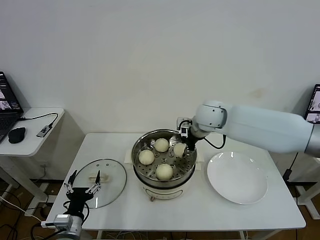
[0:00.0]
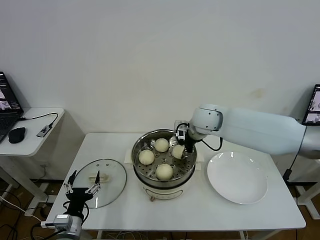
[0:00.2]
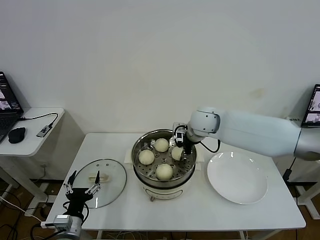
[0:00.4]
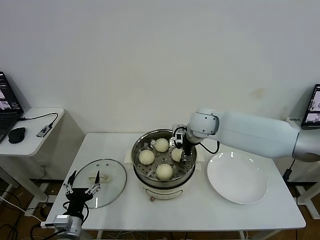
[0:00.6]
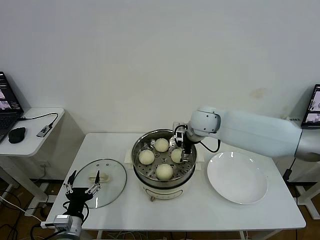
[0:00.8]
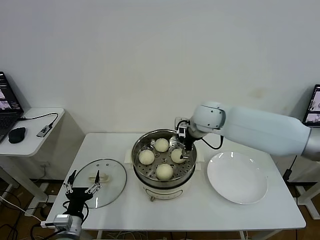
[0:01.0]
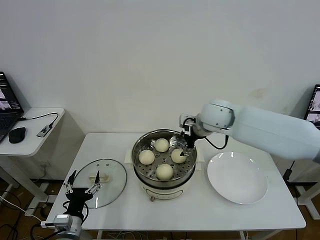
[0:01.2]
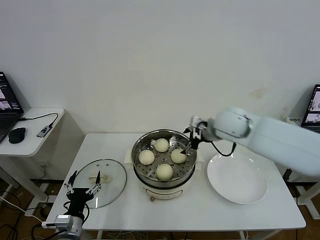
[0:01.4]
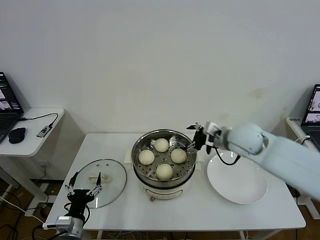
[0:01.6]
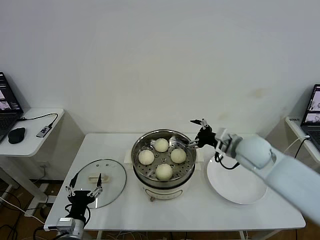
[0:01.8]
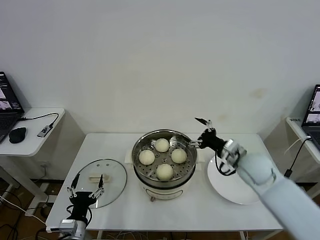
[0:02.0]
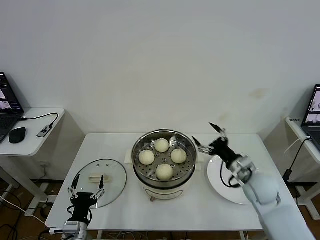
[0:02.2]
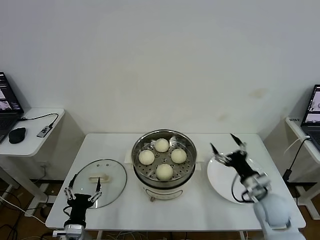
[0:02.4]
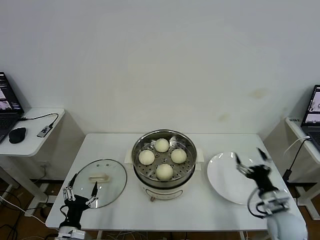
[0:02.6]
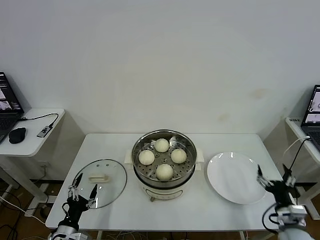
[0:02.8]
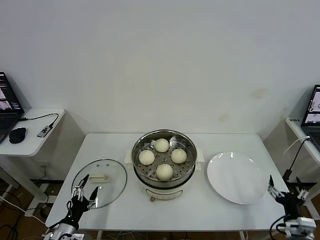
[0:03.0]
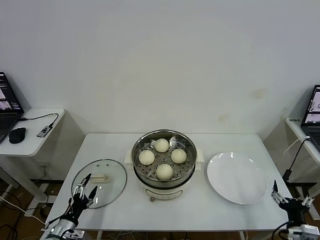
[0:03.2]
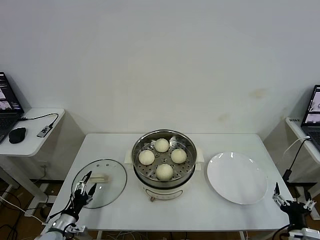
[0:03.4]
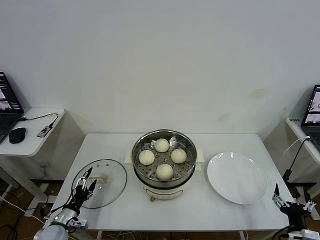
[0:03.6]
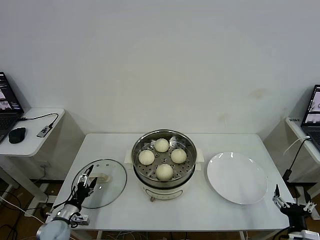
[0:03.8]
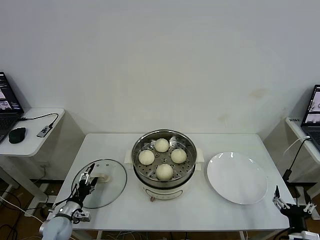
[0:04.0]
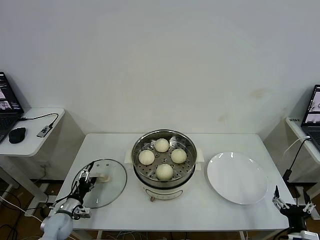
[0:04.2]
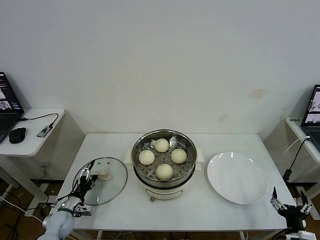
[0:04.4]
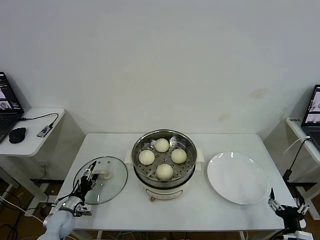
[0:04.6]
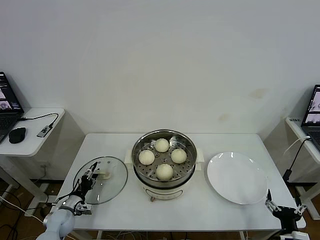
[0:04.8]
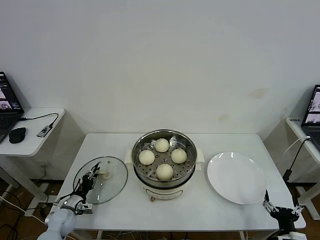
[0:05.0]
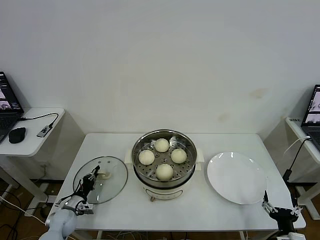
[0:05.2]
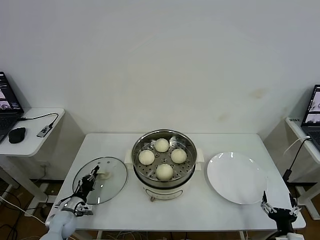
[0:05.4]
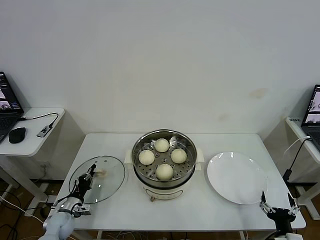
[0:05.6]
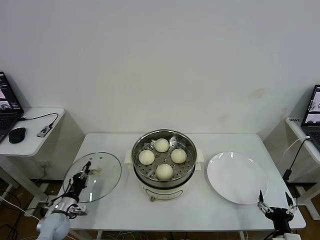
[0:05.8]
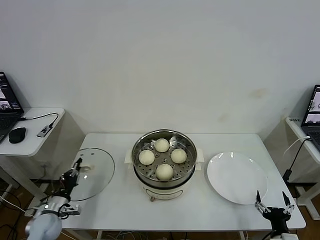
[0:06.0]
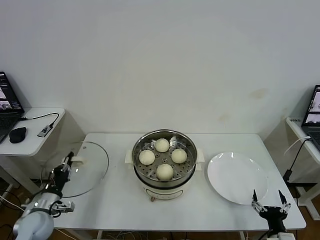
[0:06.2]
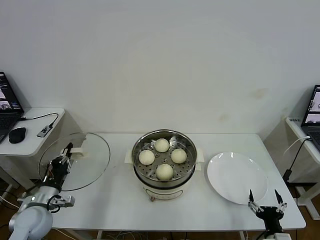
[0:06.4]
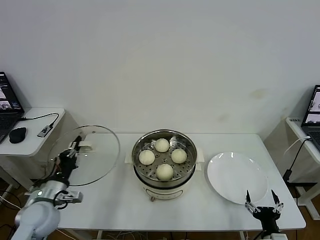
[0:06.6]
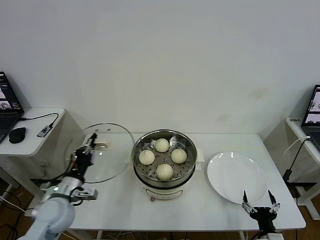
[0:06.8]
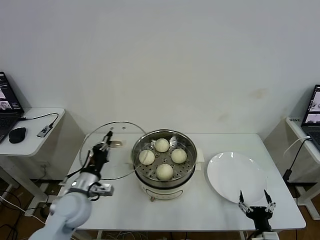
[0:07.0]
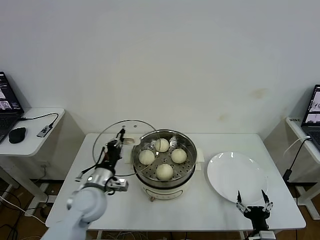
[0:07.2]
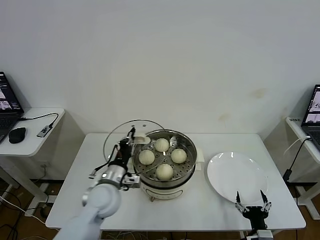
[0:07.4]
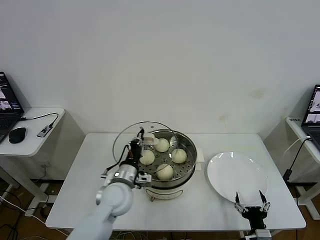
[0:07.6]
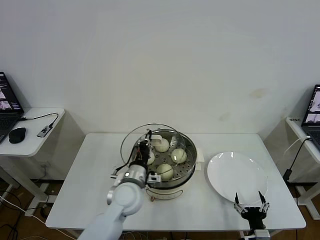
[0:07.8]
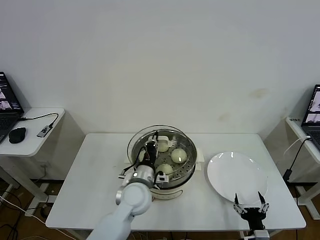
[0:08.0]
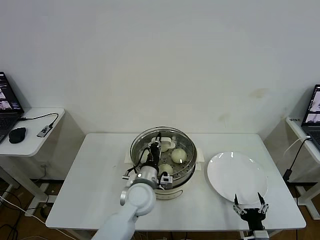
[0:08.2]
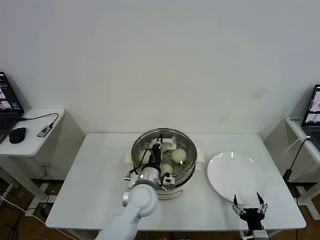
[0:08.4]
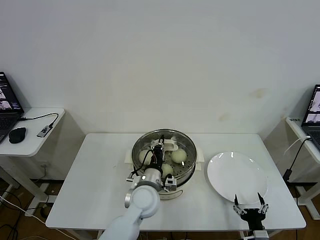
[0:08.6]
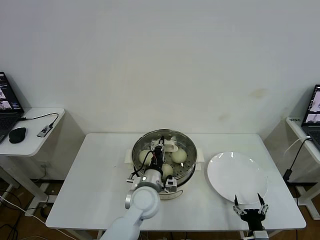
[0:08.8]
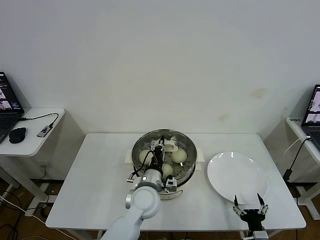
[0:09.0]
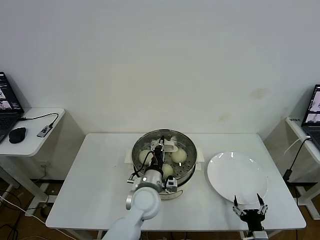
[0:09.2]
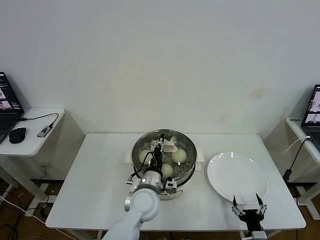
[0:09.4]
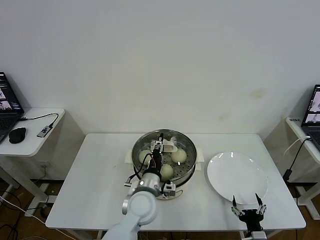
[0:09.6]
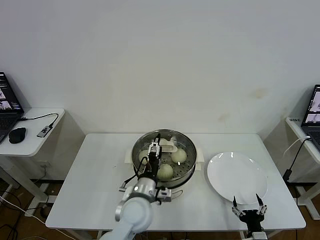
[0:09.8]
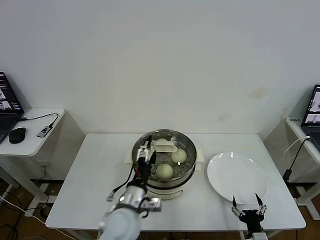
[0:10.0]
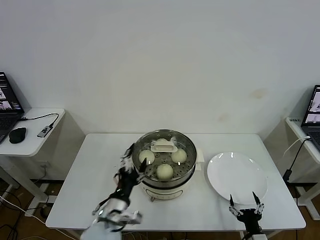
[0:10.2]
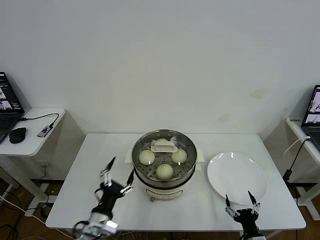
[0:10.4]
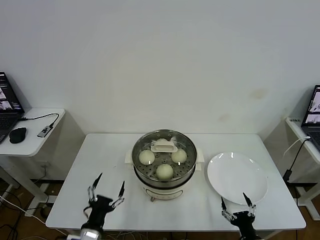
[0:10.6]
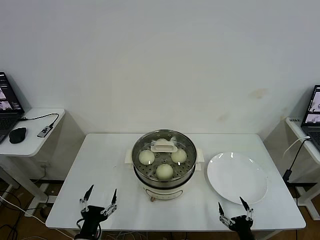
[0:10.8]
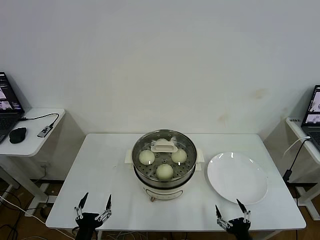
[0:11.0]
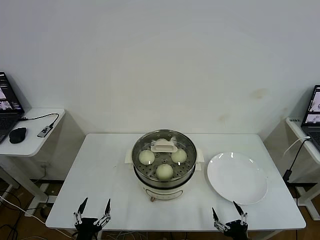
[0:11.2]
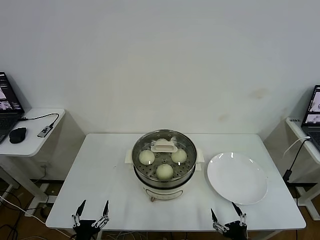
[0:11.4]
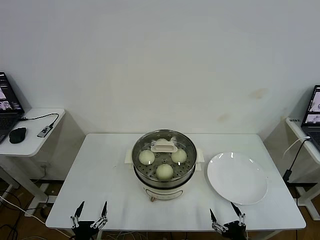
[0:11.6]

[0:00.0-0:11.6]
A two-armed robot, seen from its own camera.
Task of the whole recording: take steamed baozi put them in steamer then cover it.
Step, 0:01.2 to 0:05.4: Grasp the pot lid with left gripper.
Step, 0:05.6 to 0:10.0: Place the pot lid on the steamer with left gripper.
0:00.0 to 0:01.4: The right gripper shifts by roughly 5 cm, and opens its fingers.
0:01.4 to 0:02.8: The left gripper changes place by approximately 5 cm, while the right gripper shifts roughly 40 cm backward, downward and to the right.
0:02.8 to 0:04.4: The right gripper is displaced backward by approximately 5 cm. The left gripper is displaced forward, downward and to the left by roughly 15 cm.
0:04.4 to 0:05.8: The left gripper closes.
0:05.8 to 0:07.2: The left gripper heads upward and to the right, covering roughly 25 cm. Meanwhile the right gripper heads to the left, covering roughly 5 cm.
0:07.2 to 0:08.8: The left gripper moves to the right, some 15 cm.
0:08.8 to 0:10.2: The left gripper goes approximately 15 cm backward and to the left, and opens.
0:10.2 to 0:11.6: The left gripper goes approximately 20 cm to the left, backward and downward; the right gripper changes place by about 5 cm.

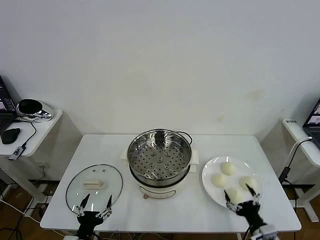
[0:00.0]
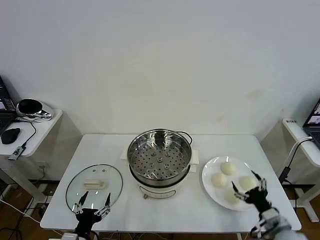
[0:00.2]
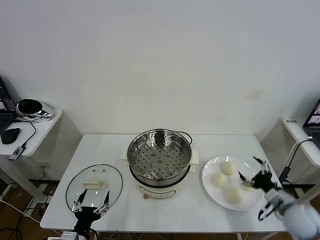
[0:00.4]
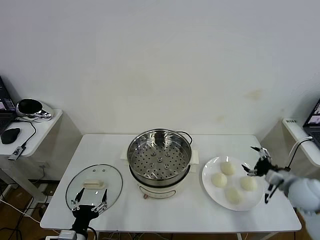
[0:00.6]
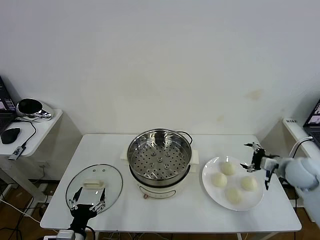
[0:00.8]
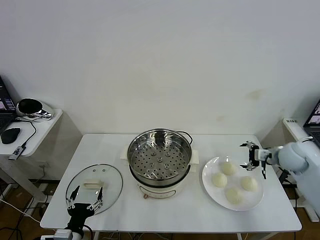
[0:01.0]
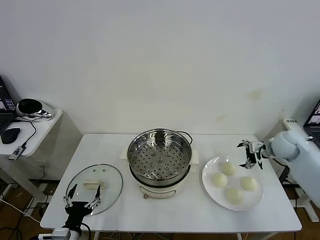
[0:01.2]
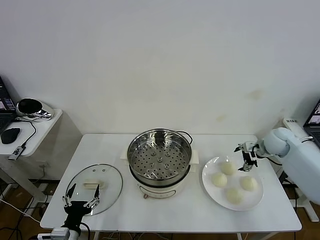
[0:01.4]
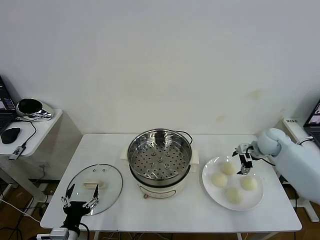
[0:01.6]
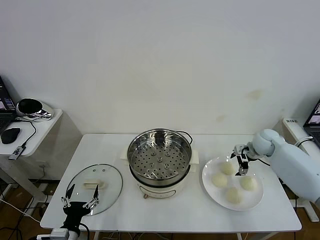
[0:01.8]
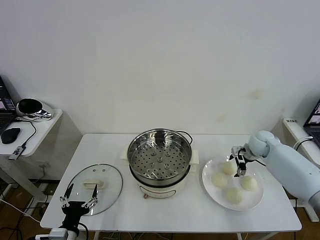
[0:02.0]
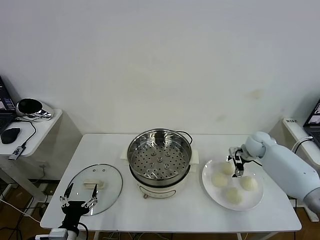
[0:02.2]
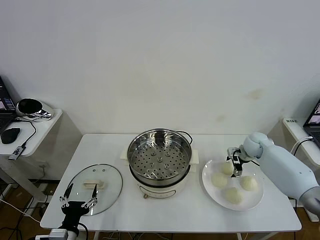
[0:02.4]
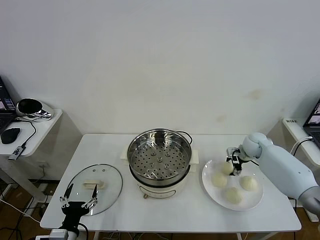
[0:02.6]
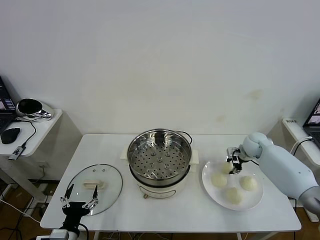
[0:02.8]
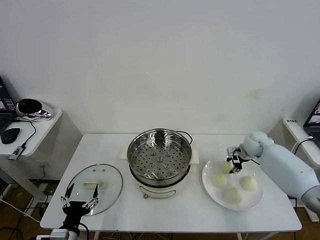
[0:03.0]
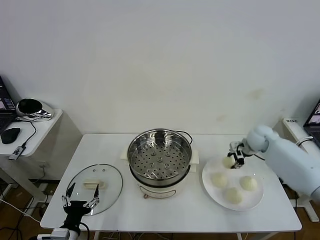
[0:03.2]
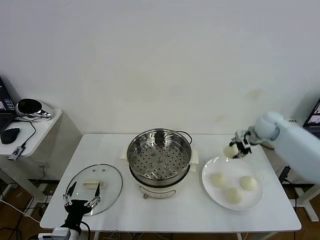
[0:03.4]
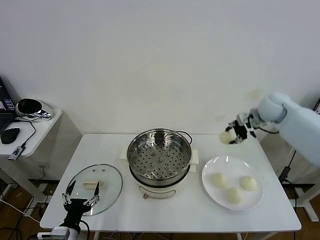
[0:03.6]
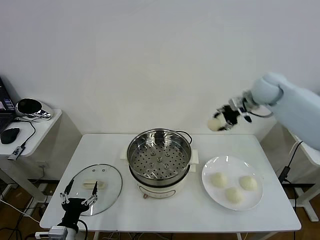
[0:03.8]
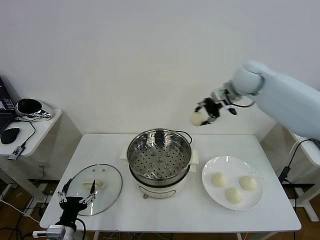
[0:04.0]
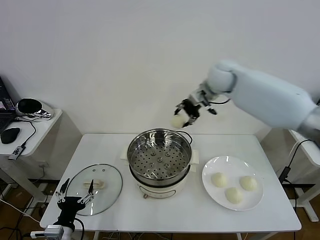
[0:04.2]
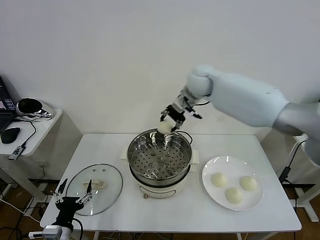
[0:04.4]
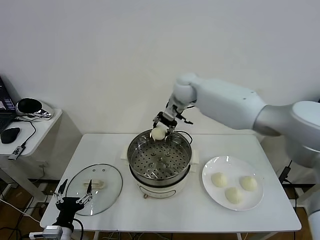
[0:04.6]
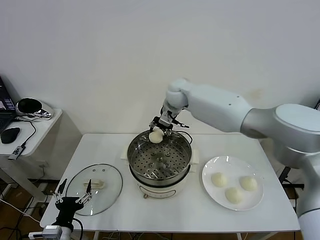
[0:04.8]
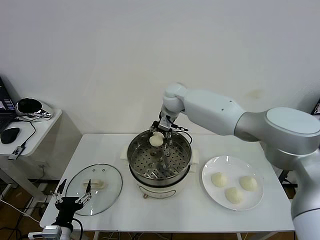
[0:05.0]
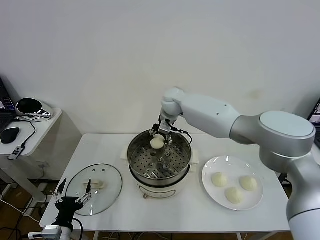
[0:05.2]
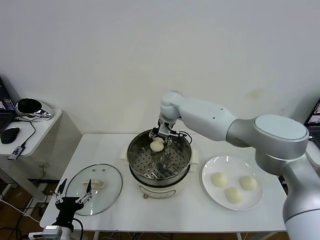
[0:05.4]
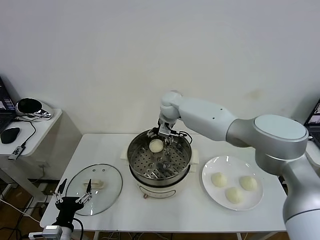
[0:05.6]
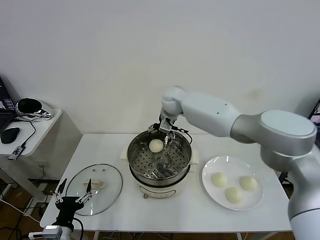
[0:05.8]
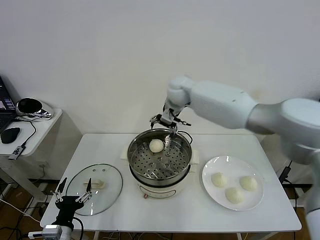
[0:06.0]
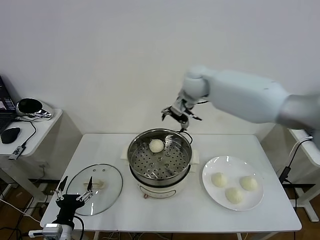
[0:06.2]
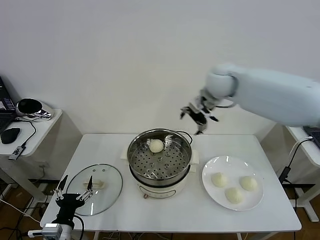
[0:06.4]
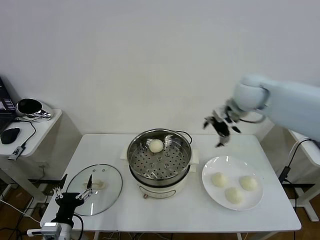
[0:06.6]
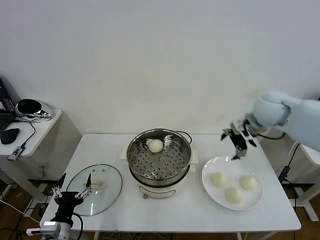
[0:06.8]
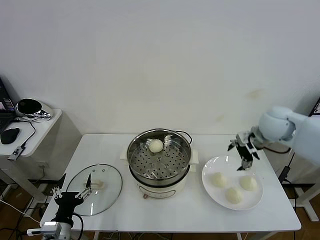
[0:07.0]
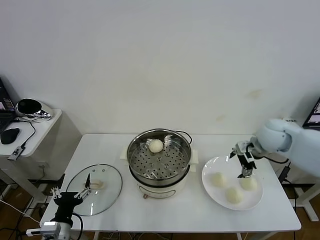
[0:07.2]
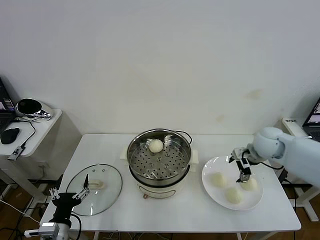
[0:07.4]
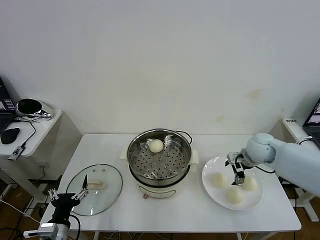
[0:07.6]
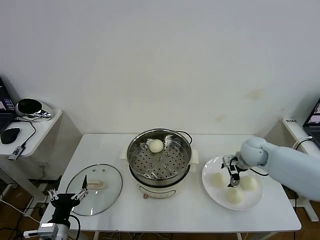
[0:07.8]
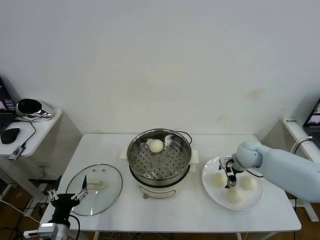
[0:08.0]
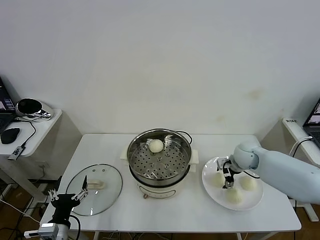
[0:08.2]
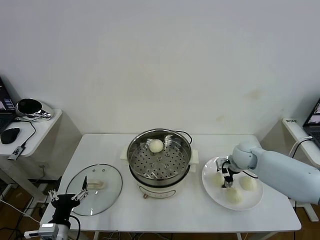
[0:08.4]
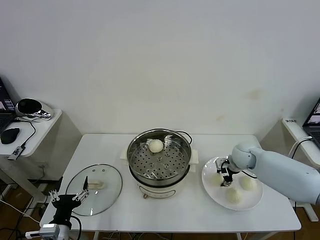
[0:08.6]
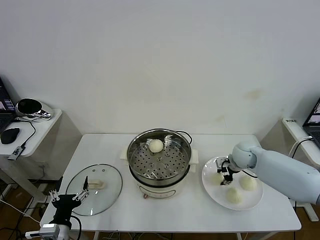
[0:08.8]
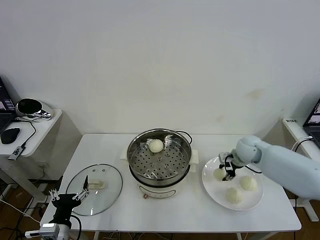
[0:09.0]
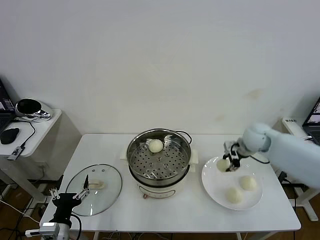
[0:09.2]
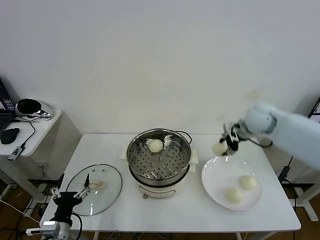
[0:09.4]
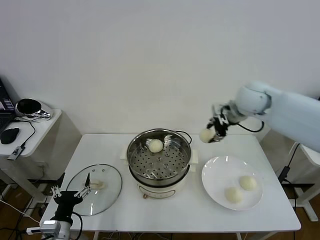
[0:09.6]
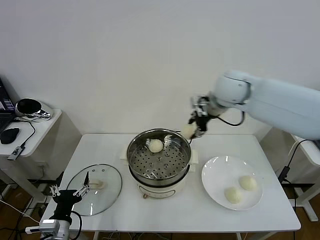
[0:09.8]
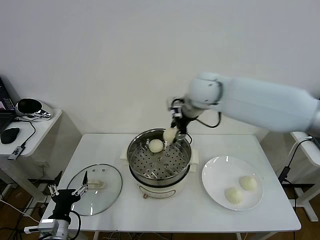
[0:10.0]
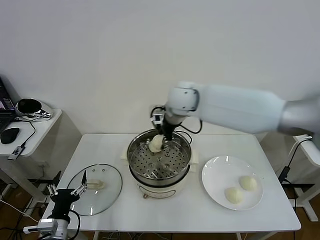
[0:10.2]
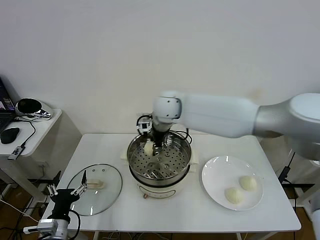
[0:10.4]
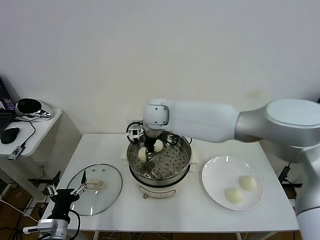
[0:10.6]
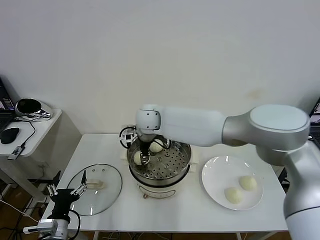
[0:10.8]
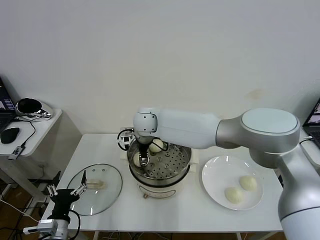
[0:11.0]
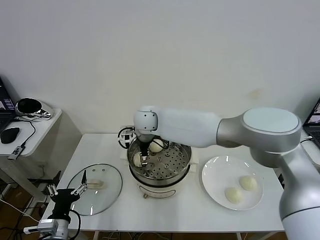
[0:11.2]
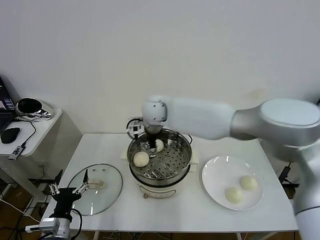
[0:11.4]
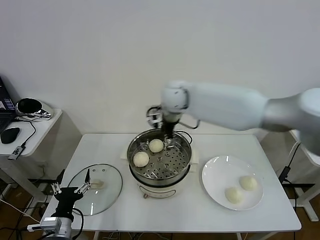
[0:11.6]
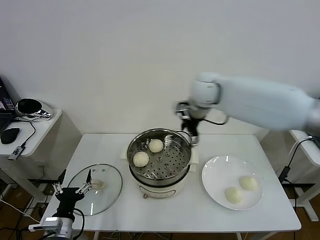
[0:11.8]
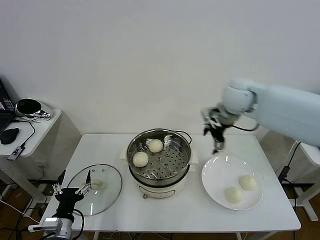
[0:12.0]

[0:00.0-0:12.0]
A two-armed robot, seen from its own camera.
Task of the whole recording: take steamed baozi put them in steamer then cover it.
Step, 0:00.0 to 0:02.6: Grasp the baozi in the plate with right gripper.
Step, 0:02.8 to 0:05.8: Place the baozi on the steamer with right gripper.
Step, 0:06.0 to 0:08.6: Grasp the baozi in the plate with right gripper.
Step, 0:08.8 to 0:11.0: Place the baozi on the steamer with right gripper.
0:01.6 to 0:03.0: The right gripper closes up.
0:03.0 to 0:04.4: The right gripper moves to the left and upward, some 35 cm.
0:04.4 to 0:06.0: The right gripper moves roughly 10 cm downward and comes back, and opens up.
0:06.0 to 0:07.6: The right gripper is displaced to the right, downward and backward by approximately 35 cm.
0:07.6 to 0:09.0: The right gripper closes.
0:09.0 to 0:10.4: The right gripper is displaced to the left by about 35 cm.
0:10.4 to 0:12.0: The right gripper moves to the right, approximately 25 cm, and opens its fingers.
